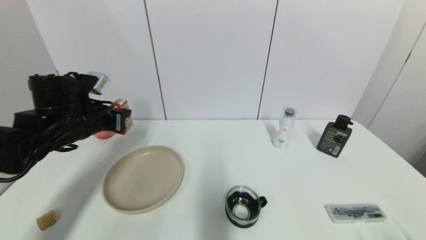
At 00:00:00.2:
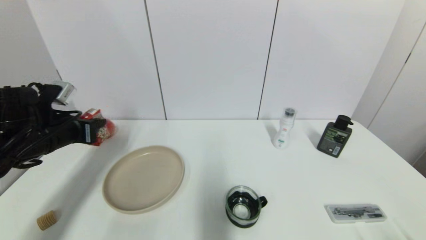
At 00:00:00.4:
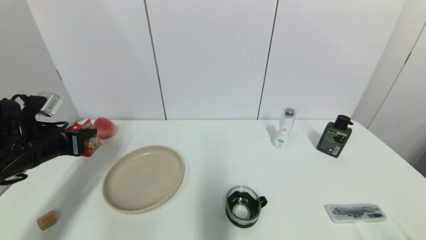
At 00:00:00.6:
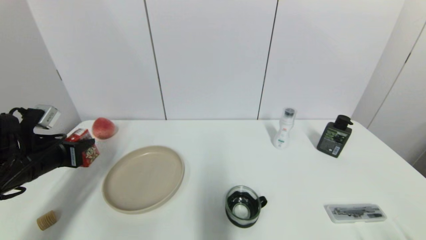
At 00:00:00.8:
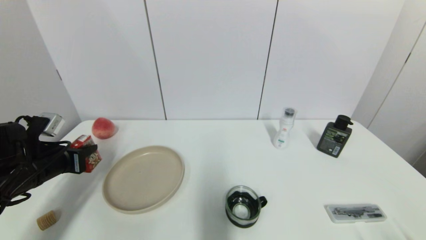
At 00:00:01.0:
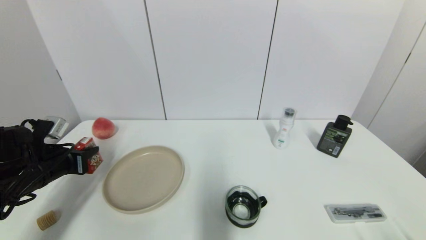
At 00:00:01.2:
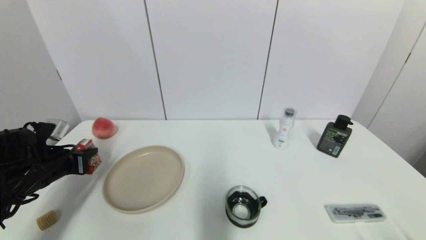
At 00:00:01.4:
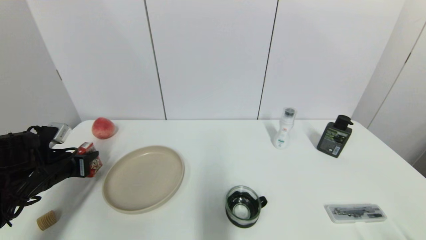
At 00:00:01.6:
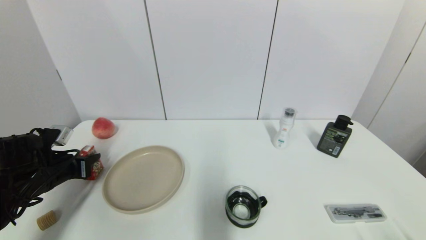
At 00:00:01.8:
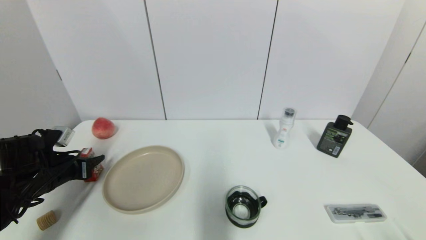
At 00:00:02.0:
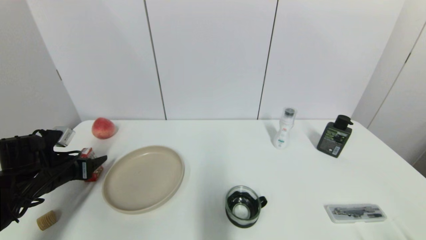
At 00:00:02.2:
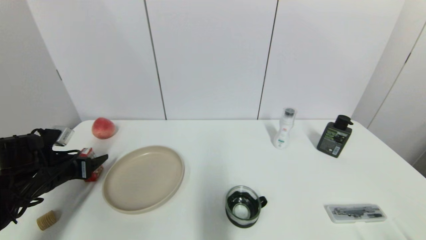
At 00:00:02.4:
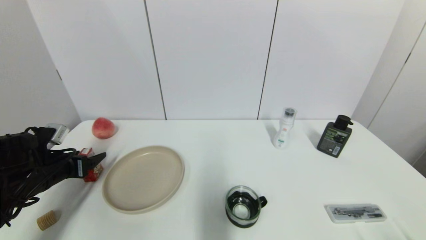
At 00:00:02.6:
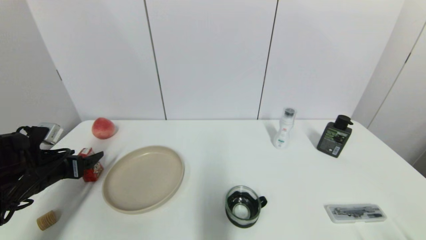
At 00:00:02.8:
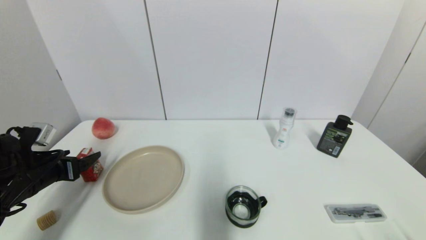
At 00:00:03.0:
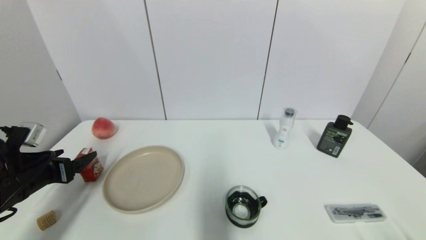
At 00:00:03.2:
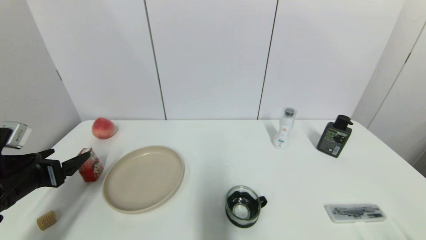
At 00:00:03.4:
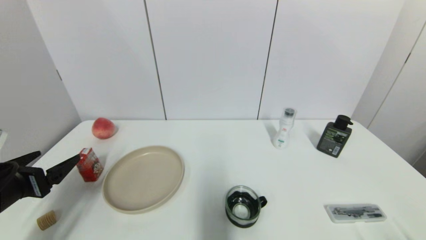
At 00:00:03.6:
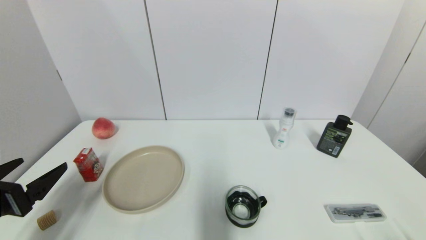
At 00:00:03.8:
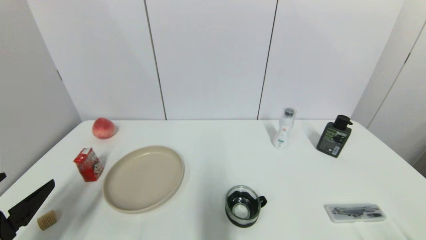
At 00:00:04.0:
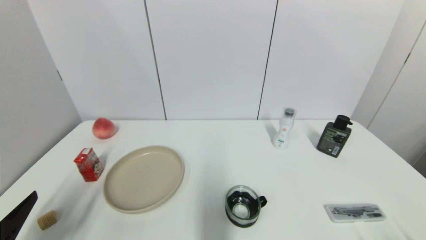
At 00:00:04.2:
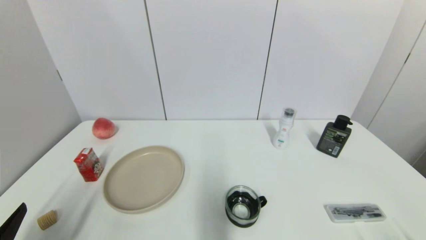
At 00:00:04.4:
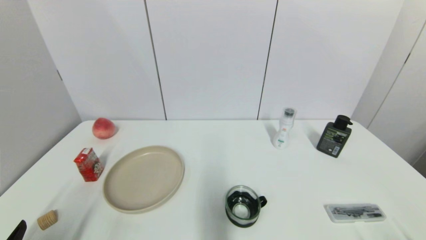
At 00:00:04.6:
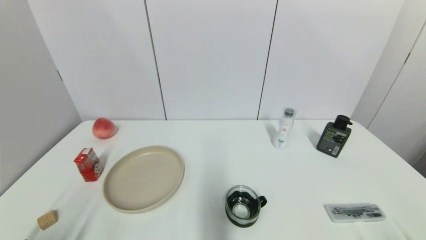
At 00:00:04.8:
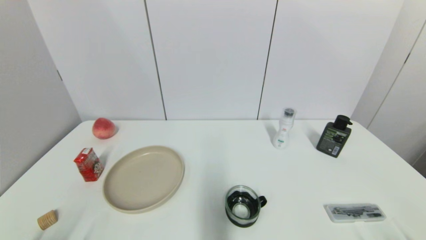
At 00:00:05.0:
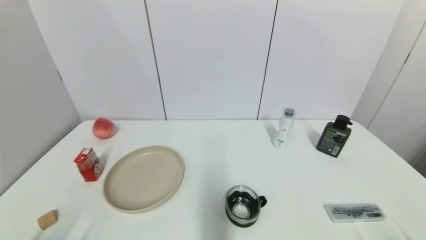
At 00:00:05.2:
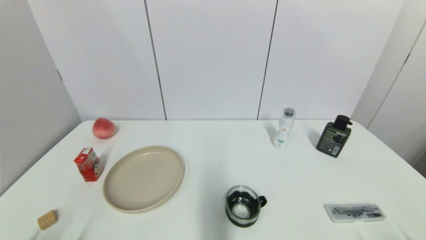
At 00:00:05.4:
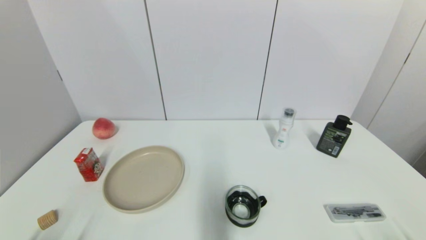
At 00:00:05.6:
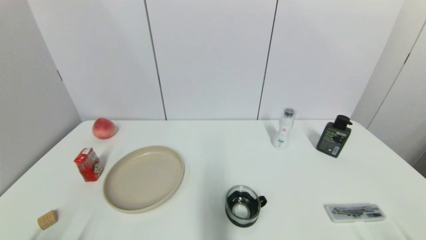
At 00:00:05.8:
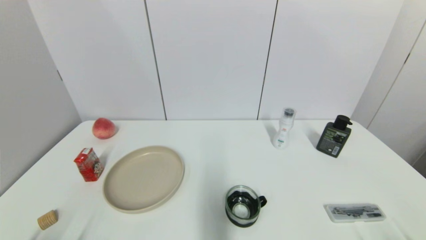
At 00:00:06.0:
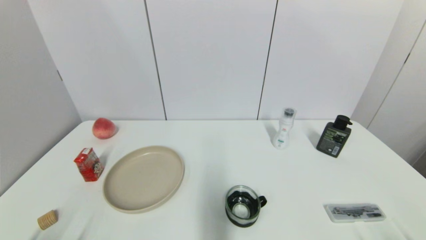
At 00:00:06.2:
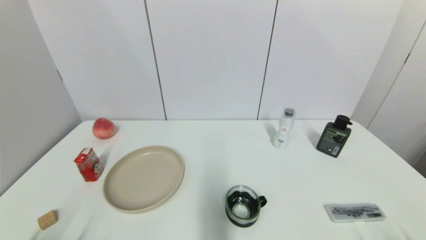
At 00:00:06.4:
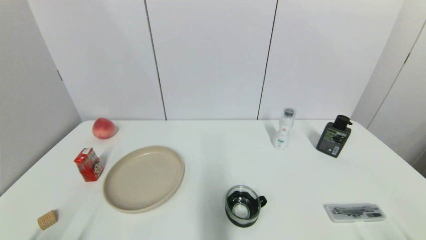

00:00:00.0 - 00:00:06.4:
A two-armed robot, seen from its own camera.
Step, 00:00:00.0 - 00:00:01.8: Place the wangzai milk on the table with left gripper.
00:00:00.0 - 00:00:01.6: The left gripper shifts about 10 cm downward and to the left.
00:00:01.6 - 00:00:03.2: The left gripper heads backward and upward, covering roughly 10 cm, and opens its fingers.
00:00:03.2 - 00:00:04.8: The left gripper heads backward, covering some 20 cm.
